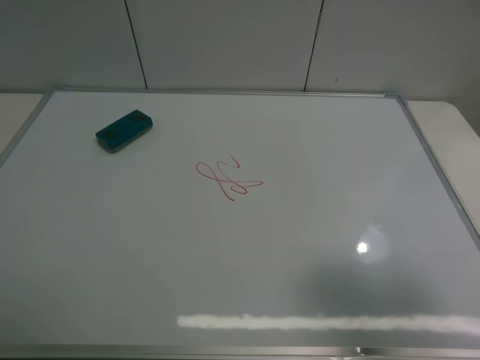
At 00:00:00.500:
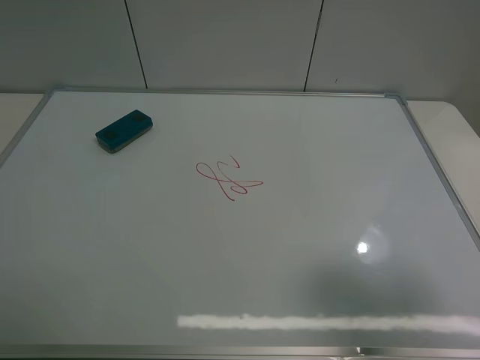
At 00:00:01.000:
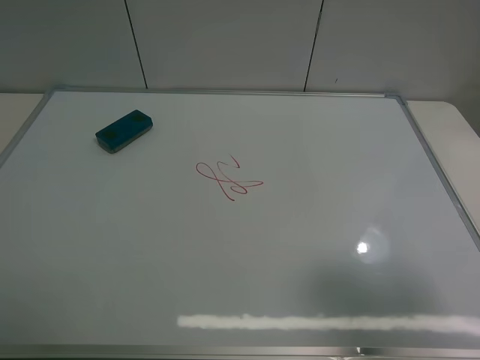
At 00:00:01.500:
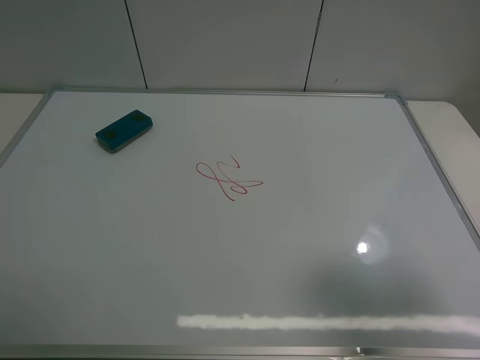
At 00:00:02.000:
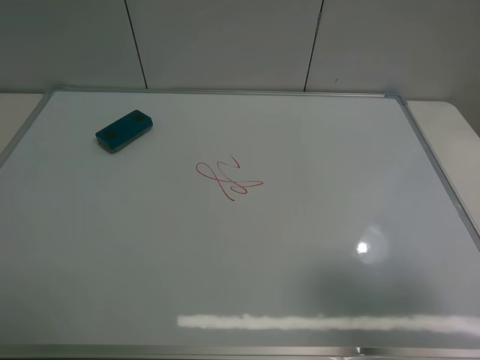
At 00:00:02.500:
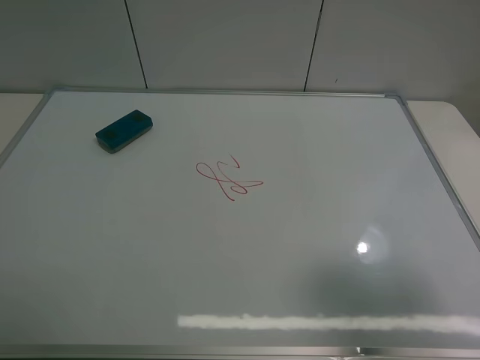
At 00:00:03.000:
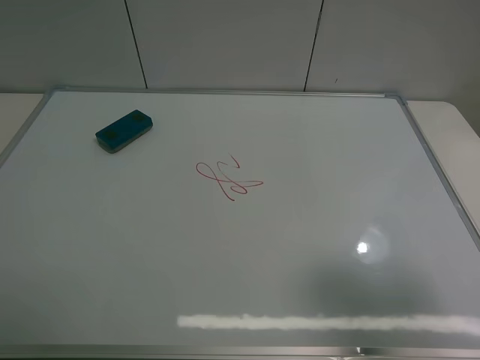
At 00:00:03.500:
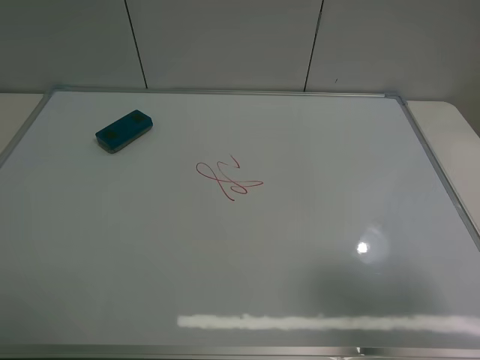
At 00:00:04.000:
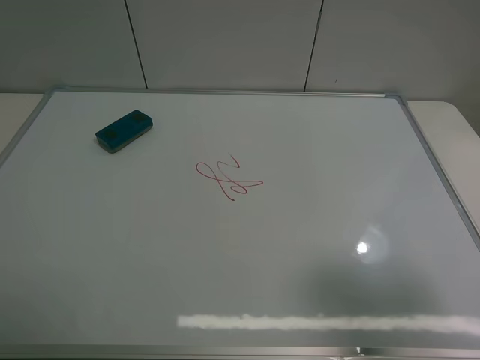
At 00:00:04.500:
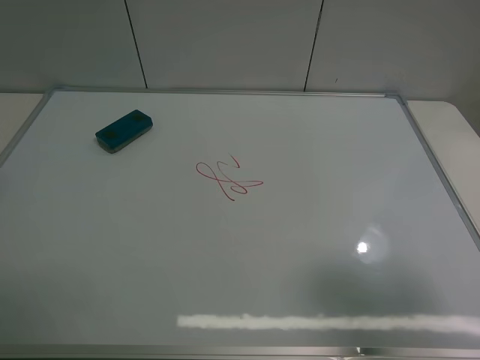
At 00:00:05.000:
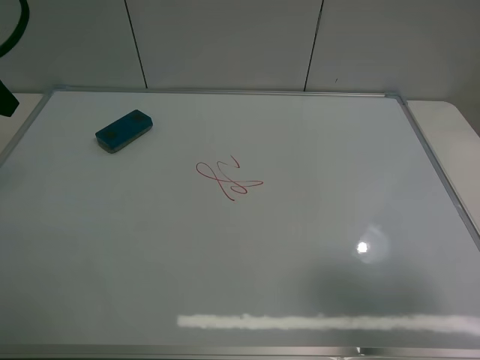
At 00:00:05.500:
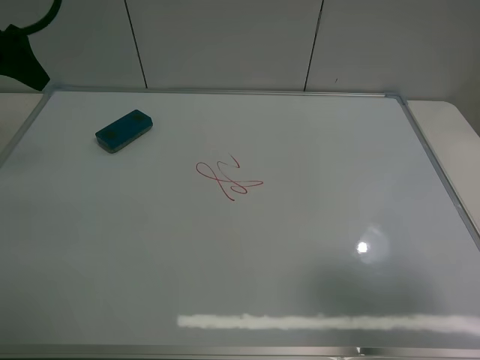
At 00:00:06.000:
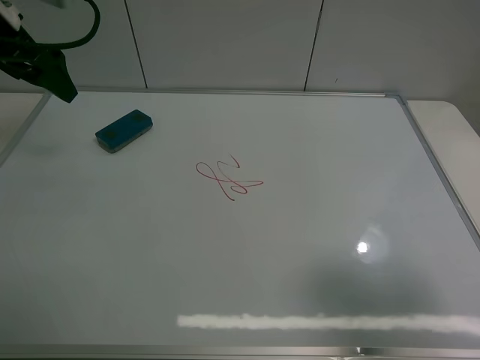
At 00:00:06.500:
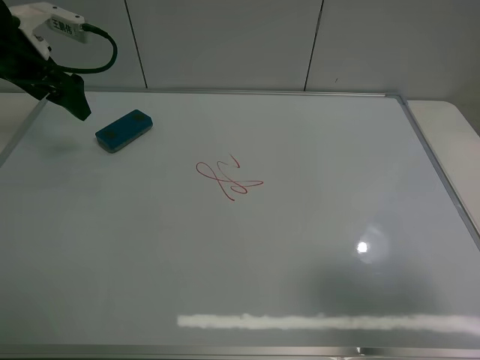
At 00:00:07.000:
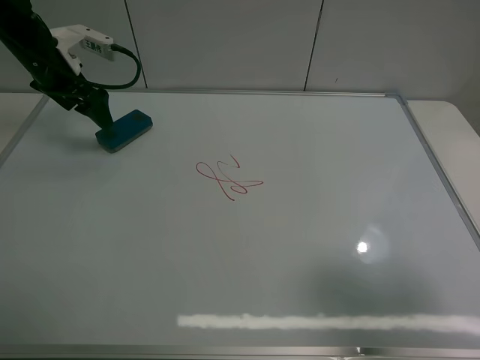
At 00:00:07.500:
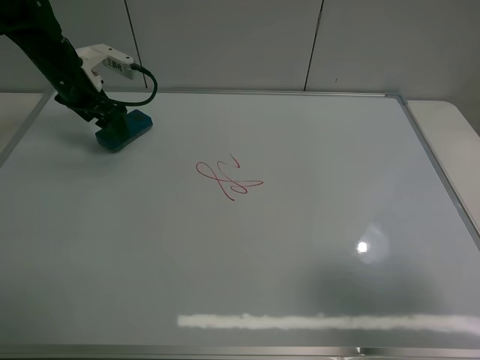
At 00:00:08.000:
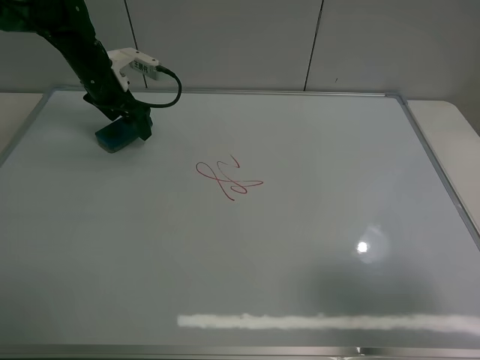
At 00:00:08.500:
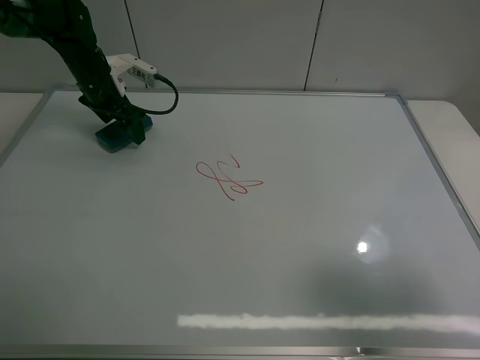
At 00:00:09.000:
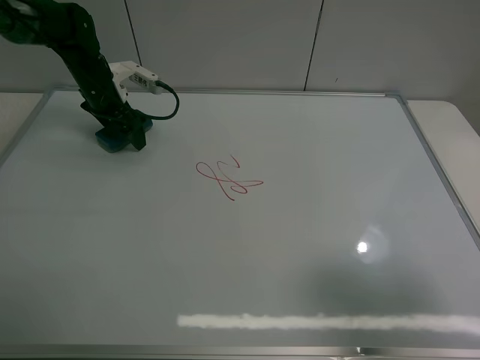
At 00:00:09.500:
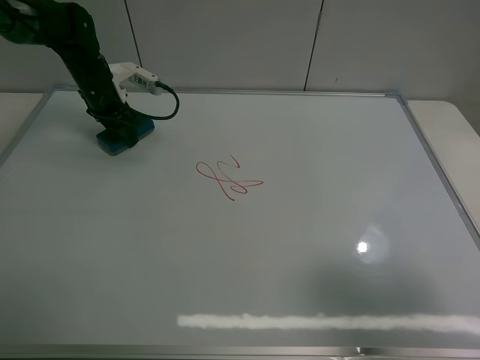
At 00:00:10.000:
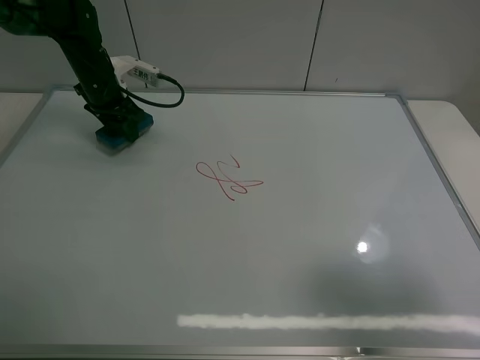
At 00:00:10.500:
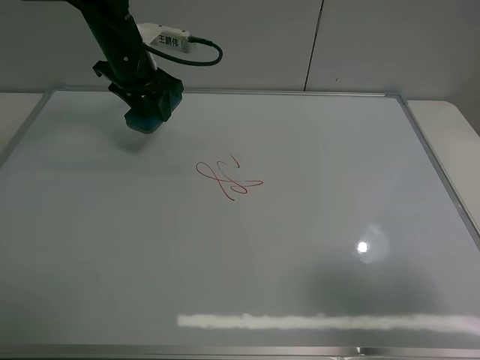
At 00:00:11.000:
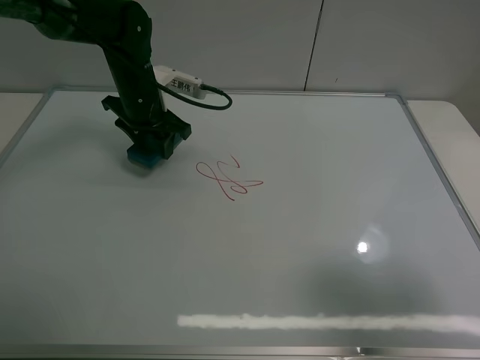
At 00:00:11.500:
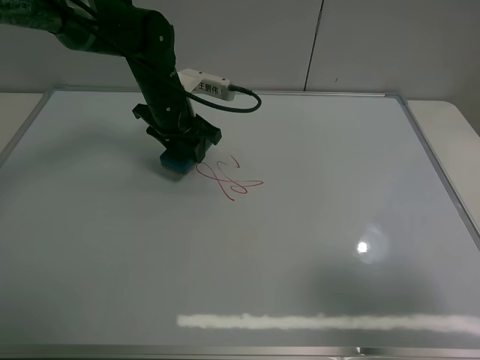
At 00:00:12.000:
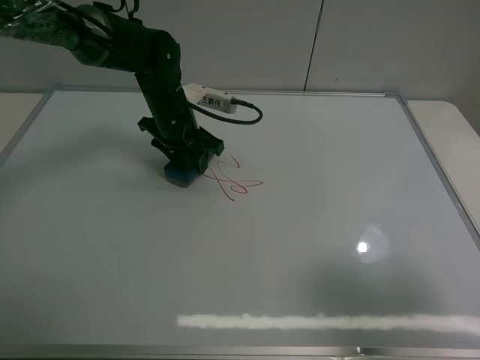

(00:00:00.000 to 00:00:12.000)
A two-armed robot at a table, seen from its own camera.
Task of the whole recording: use the left claw to pick up the whiteboard eraser, wipe the notes on the whiteboard clean, and then put them back in place.
Step, 00:00:00.000 - 00:00:09.500: Grasp the eraser with the left gripper.
00:00:00.000 - 00:00:02.000: Both grippers stay put.
00:00:04.000 - 00:00:06.000: The left gripper is displaced forward by approximately 25 cm.
00:00:06.000 - 00:00:08.000: The left gripper moves downward and forward, roughly 20 cm.
00:00:08.000 - 00:00:10.000: The left gripper closes its fingers.
00:00:10.000 - 00:00:12.000: The left gripper goes approximately 15 cm to the right and backward.

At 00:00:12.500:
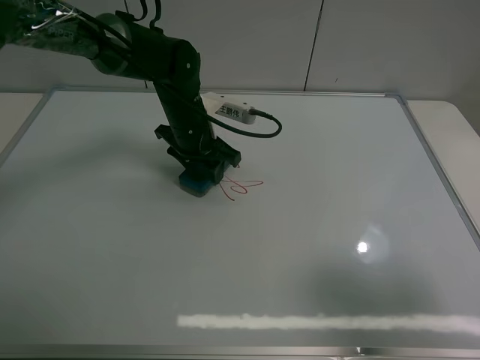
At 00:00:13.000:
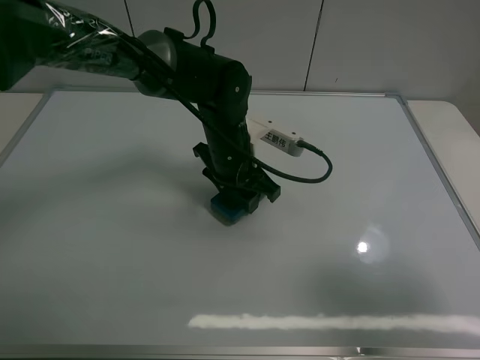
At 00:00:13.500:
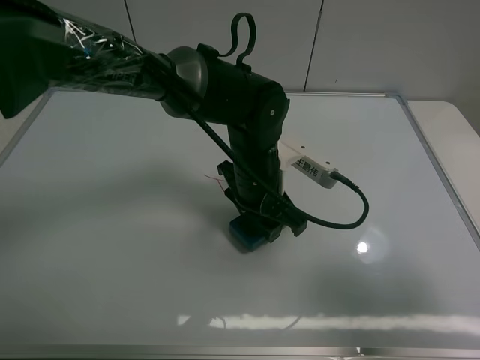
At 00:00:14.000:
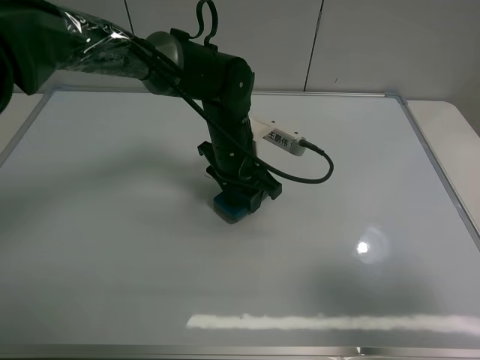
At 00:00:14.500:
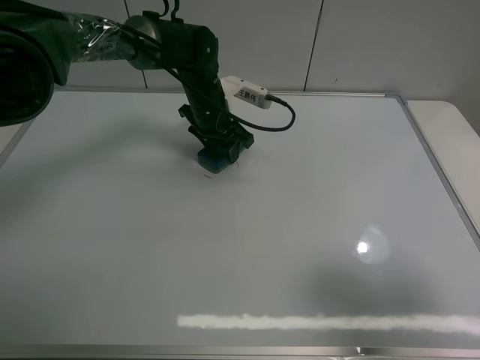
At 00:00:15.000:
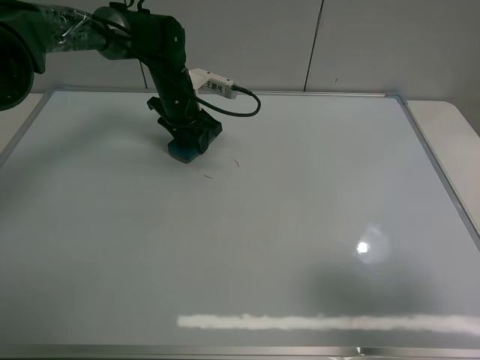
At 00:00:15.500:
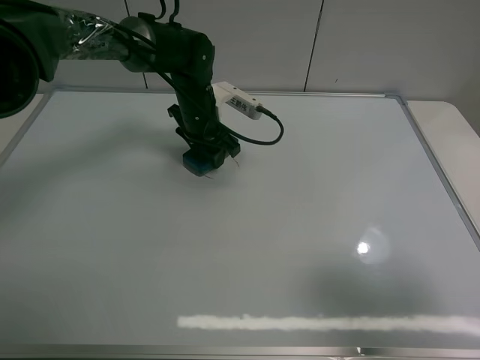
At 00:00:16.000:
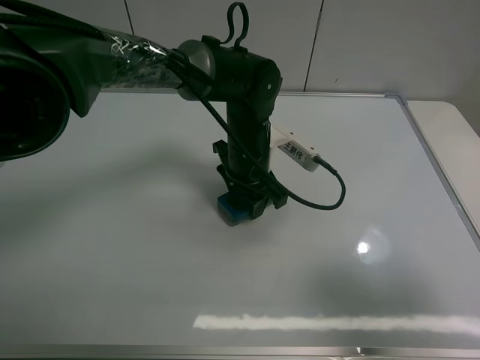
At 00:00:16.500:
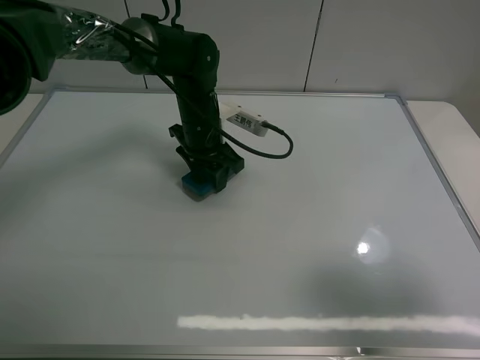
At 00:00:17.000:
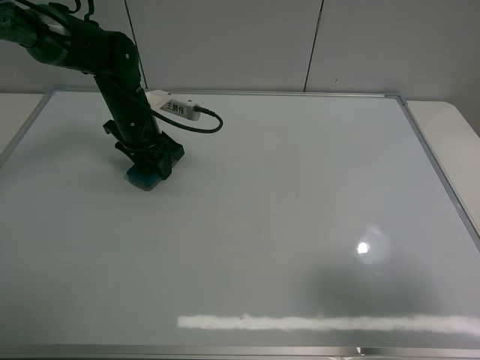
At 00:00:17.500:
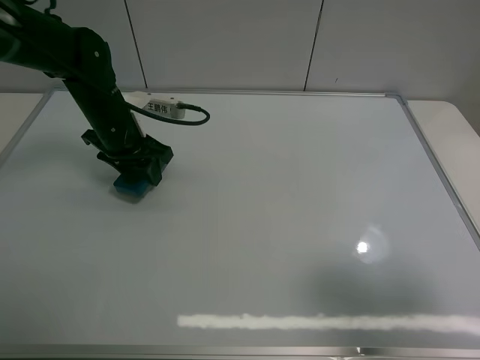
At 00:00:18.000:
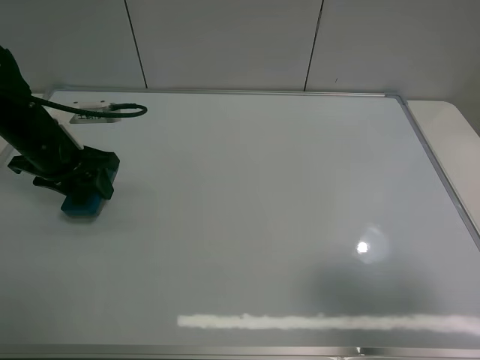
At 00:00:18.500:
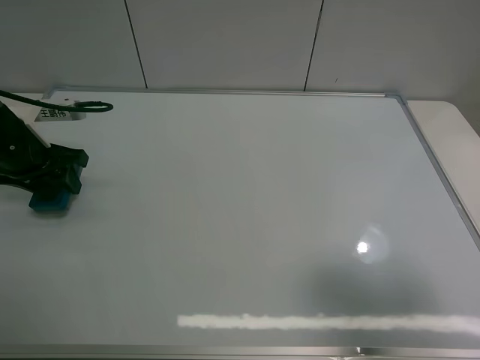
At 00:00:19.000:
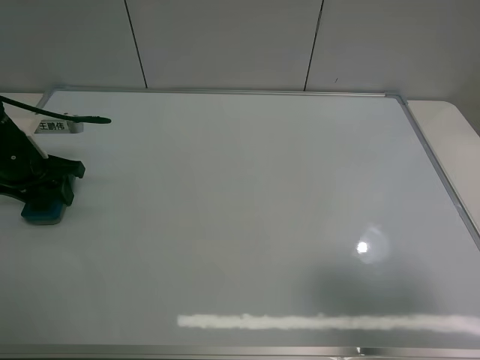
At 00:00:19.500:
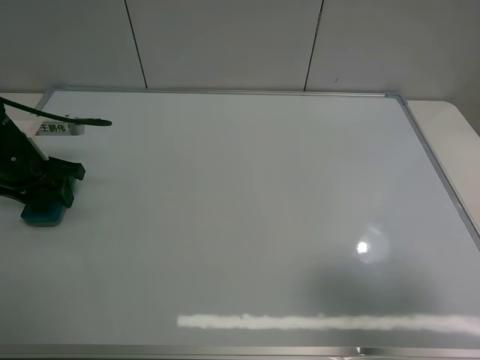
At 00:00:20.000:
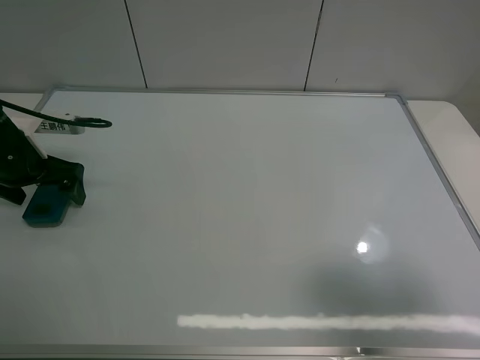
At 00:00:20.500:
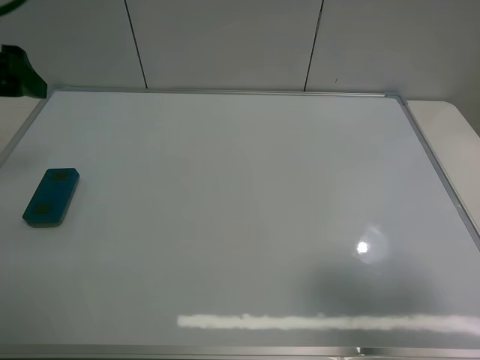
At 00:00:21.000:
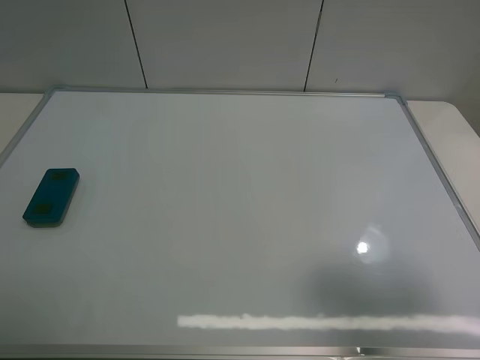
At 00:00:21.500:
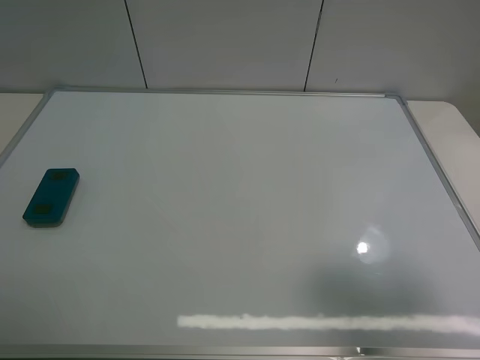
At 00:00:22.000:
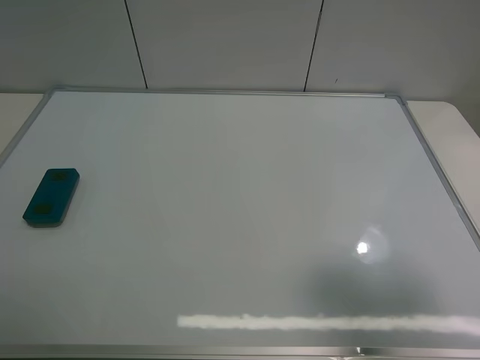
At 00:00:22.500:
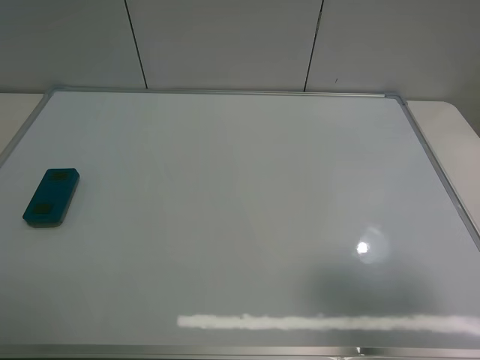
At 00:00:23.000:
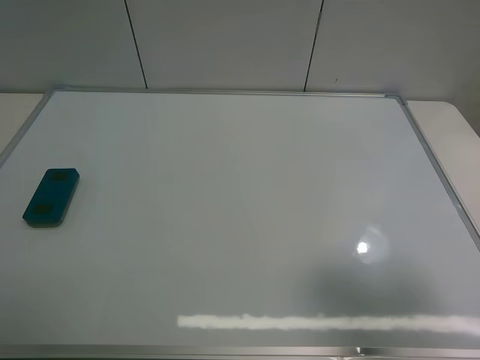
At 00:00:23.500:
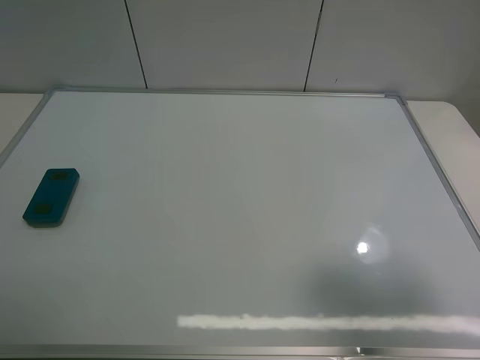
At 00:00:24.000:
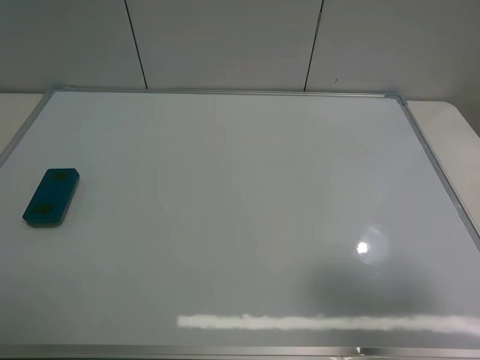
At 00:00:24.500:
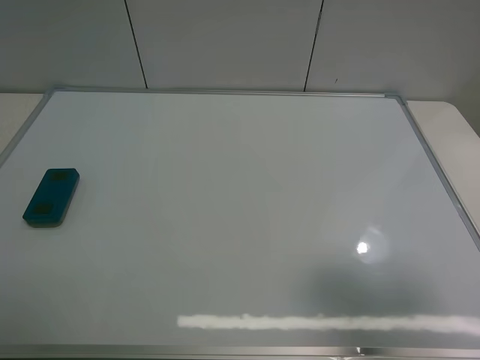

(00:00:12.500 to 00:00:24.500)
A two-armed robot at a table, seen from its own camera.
Task of the whole recording: use the left claw to pick up the whiteboard eraser, wipe the notes on the whiteboard clean, and then put them back in place.
Step, 00:00:12.500 - 00:00:17.000: Grasp the eraser and wipe the blackboard with the left gripper.
Step, 00:00:17.500 - 00:00:20.000: Place the eraser with the left gripper.
00:00:12.500 - 00:00:14.500: The left gripper heads forward, covering approximately 5 cm.
00:00:14.500 - 00:00:16.500: The left gripper goes left and right, approximately 15 cm each way, reversing 2 times.
00:00:16.500 - 00:00:18.500: The left gripper moves to the left, roughly 25 cm.
00:00:18.500 - 00:00:20.500: The left gripper shifts approximately 15 cm upward, and opens.
00:00:20.500 - 00:00:22.500: The left gripper goes about 25 cm backward.
00:00:22.500 - 00:00:24.500: The two grippers keep their place.
